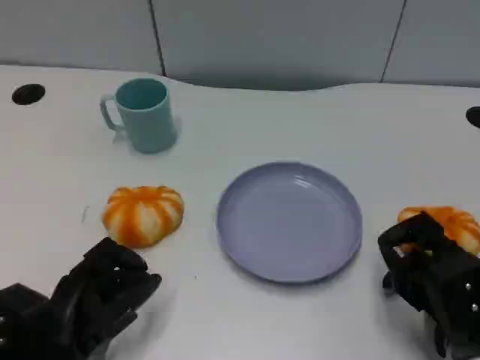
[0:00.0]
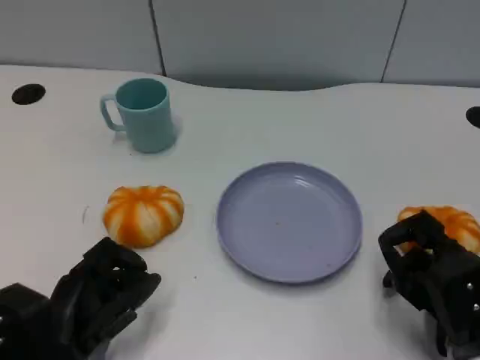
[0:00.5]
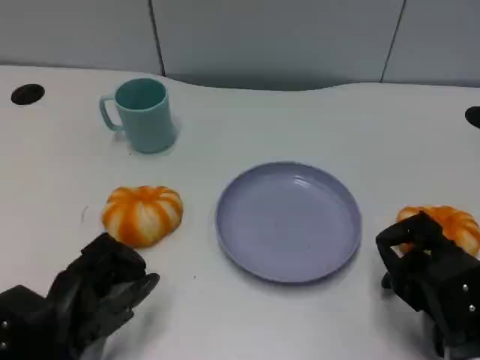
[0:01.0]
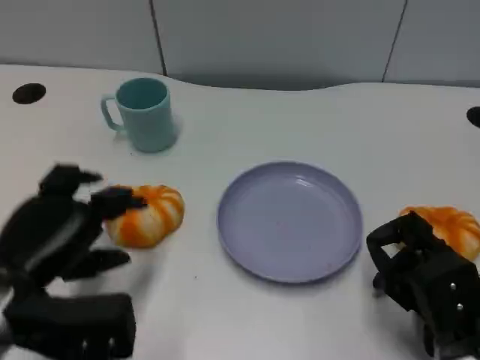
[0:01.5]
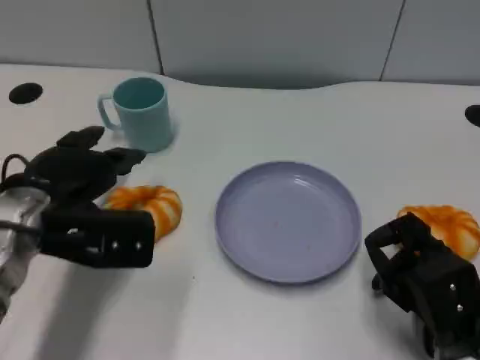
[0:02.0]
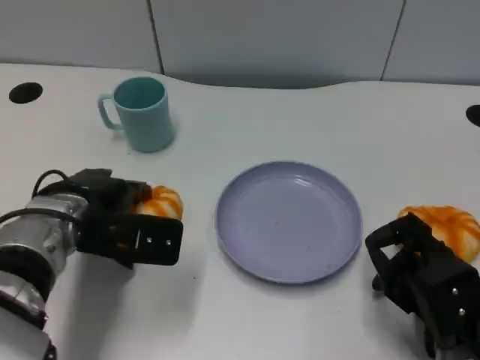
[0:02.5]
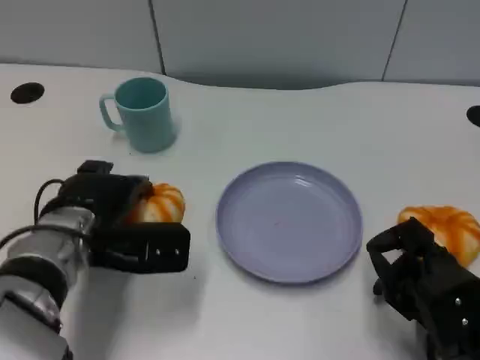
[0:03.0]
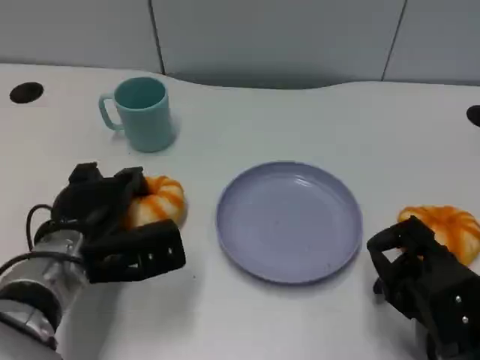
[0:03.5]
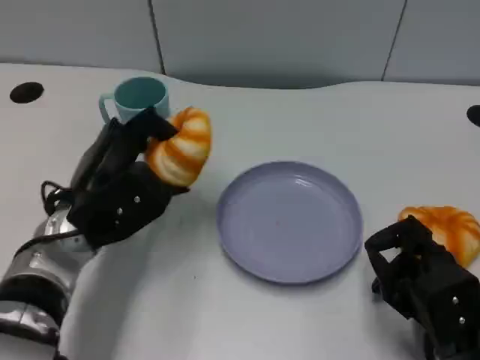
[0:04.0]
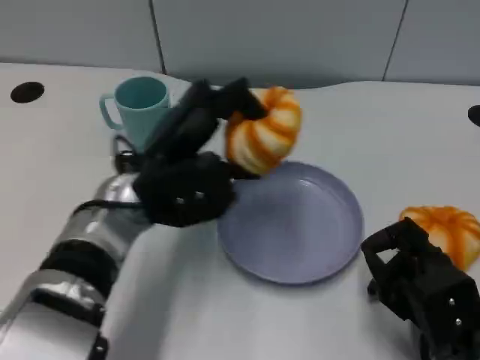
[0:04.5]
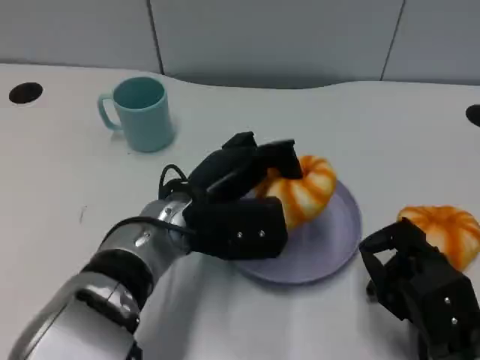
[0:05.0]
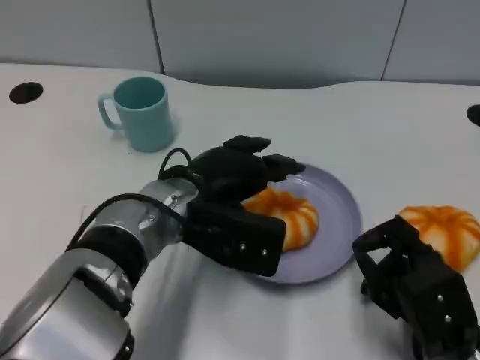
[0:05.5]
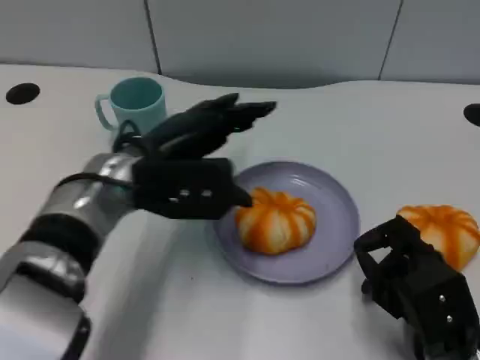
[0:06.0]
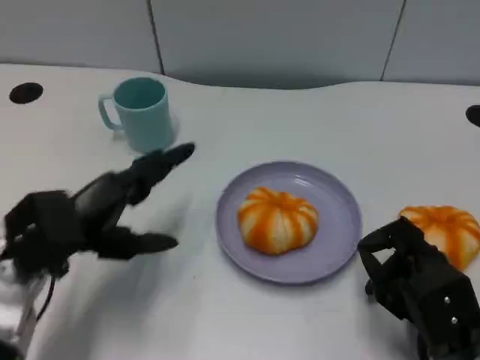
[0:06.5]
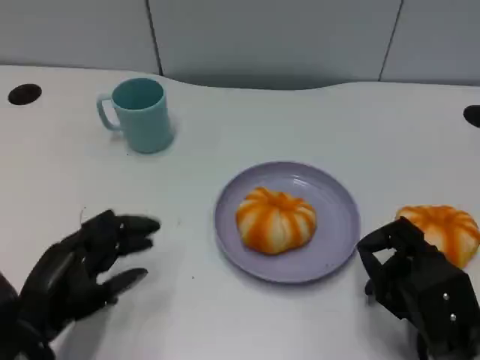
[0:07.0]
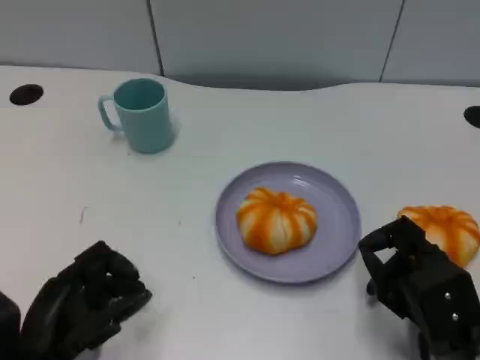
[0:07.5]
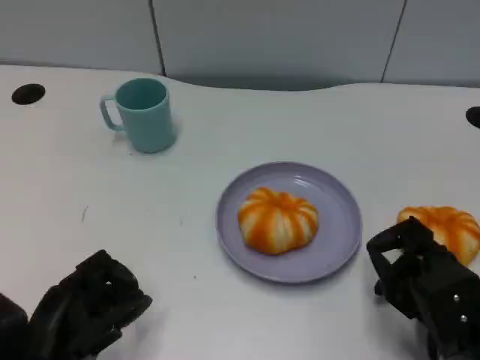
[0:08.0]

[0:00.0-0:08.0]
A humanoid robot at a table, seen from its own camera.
Task of the whole recording: Grasp the bread from the table and place it into the plate.
0:00.0 to 0:02.0: The left hand goes some 15 cm forward and upward.
0:06.0 to 0:08.0: The left hand goes roughly 20 cm backward, downward and to the left.

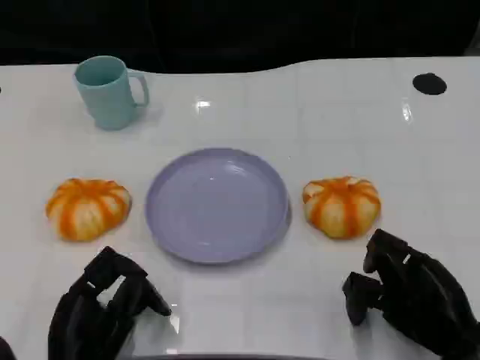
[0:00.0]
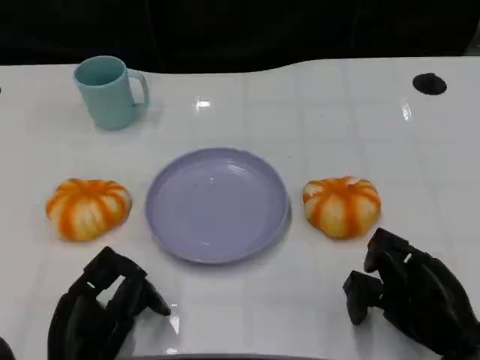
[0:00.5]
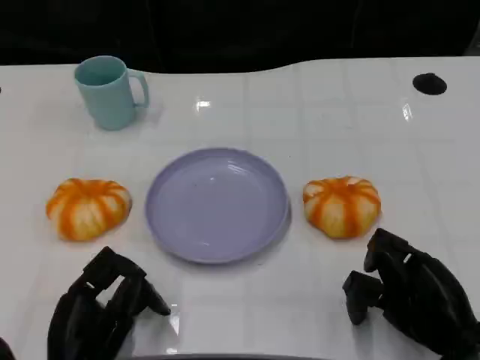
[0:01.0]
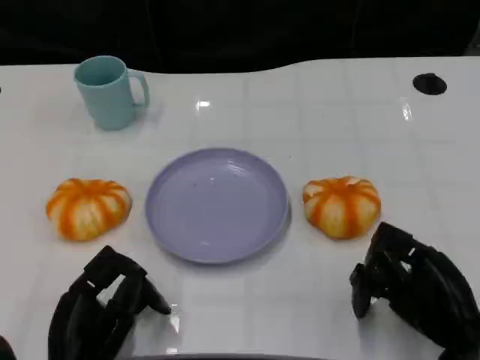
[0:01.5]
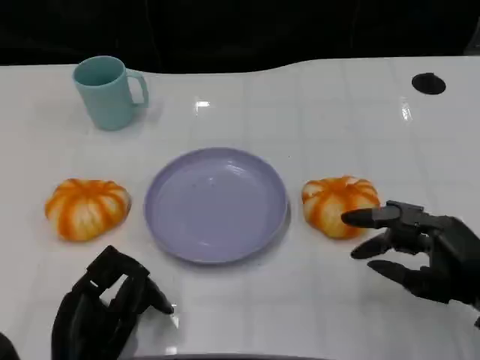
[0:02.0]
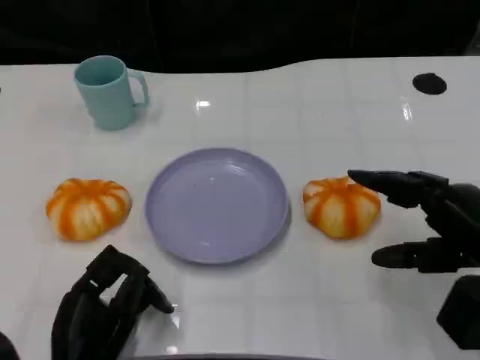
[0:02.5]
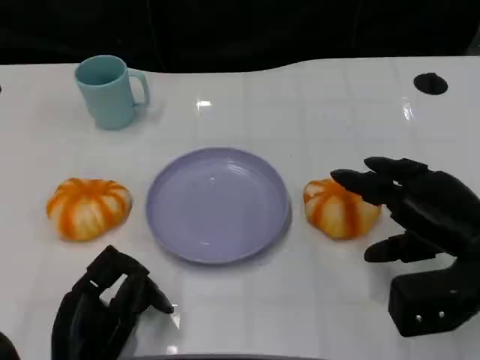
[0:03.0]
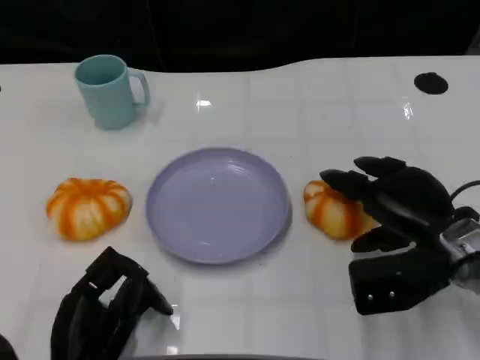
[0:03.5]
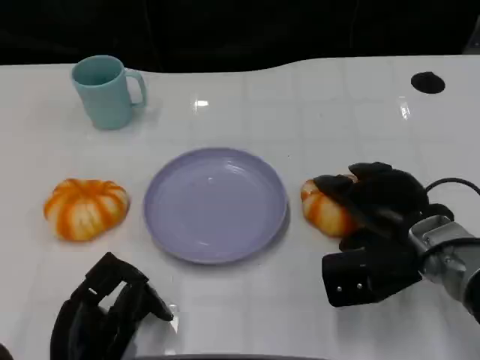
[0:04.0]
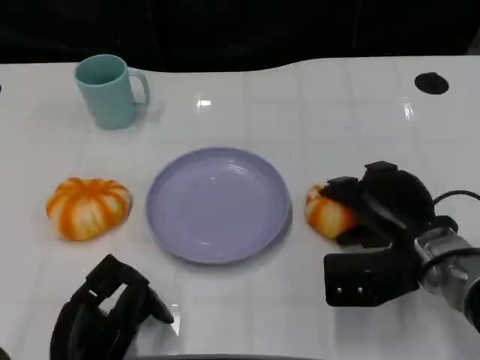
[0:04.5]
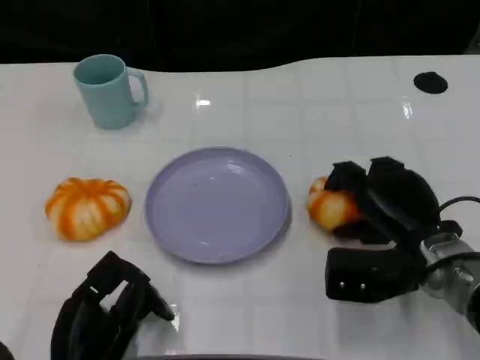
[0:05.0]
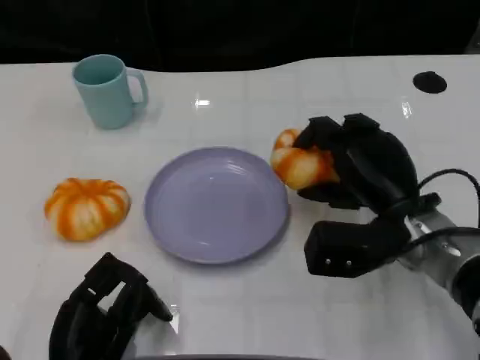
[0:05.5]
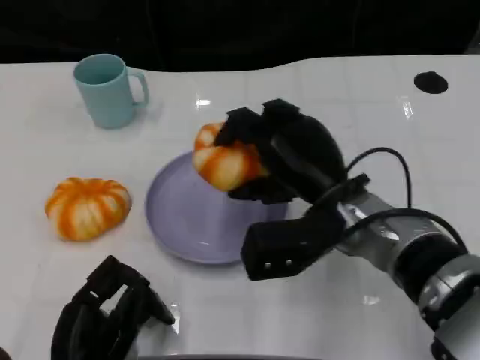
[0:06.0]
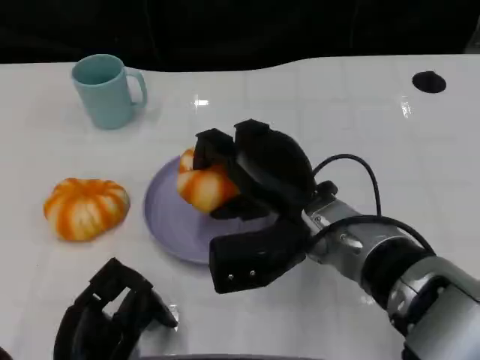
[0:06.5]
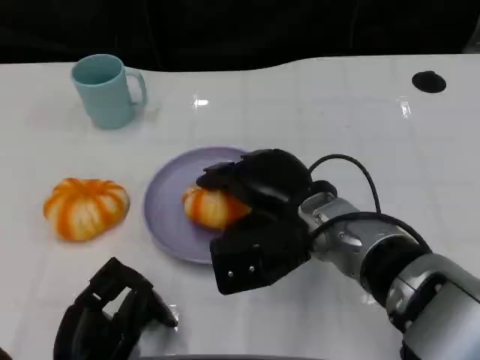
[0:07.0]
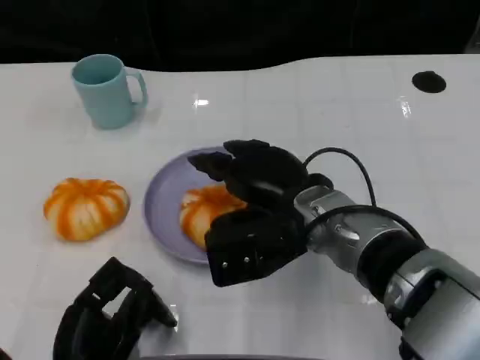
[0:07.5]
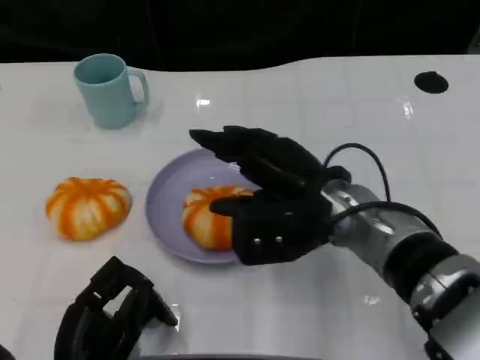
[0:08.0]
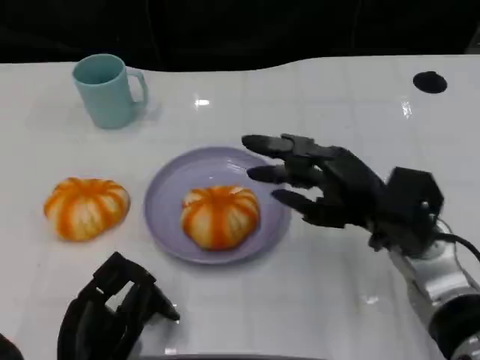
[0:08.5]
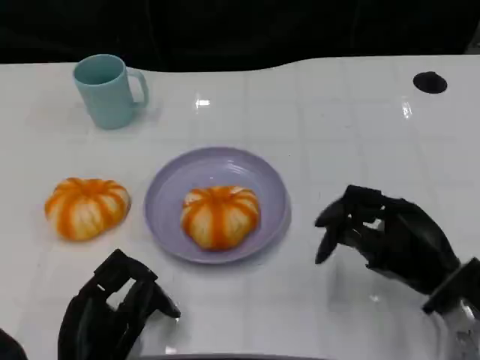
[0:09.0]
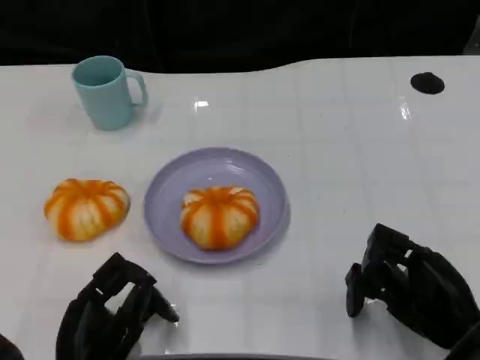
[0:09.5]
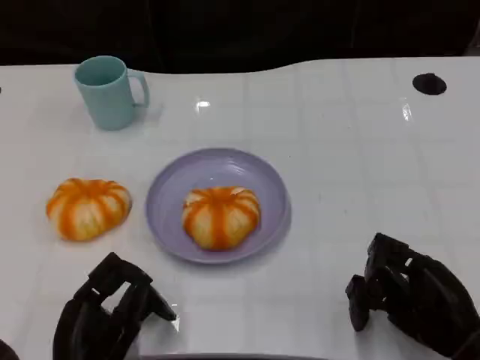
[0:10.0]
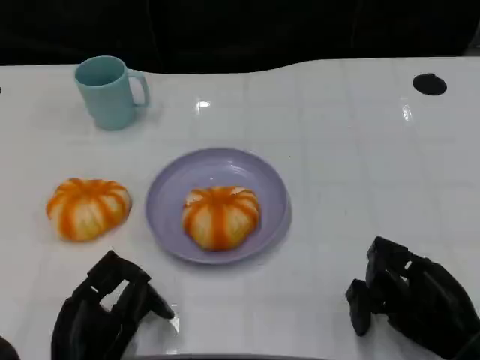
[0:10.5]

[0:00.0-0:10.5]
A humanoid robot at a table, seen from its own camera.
Task of the whole recording: Grasp the bread from the table and place it into the plate.
0:00.0 to 0:02.0: The right hand is displaced upward by roughly 5 cm.
0:02.0 to 0:04.0: The right hand heads forward and to the left, covering roughly 10 cm.
0:04.0 to 0:06.5: The right hand shifts some 10 cm to the left.
0:06.5 to 0:08.5: The right hand moves to the right, approximately 10 cm.
0:08.5 to 0:10.5: The right hand travels backward, to the right and downward by about 15 cm.

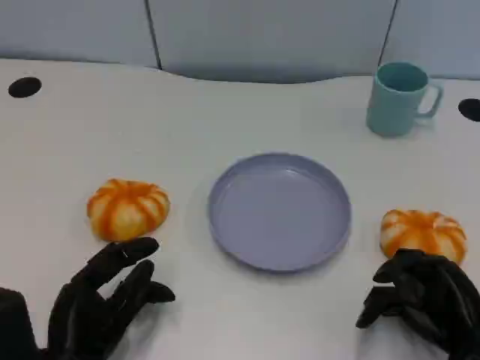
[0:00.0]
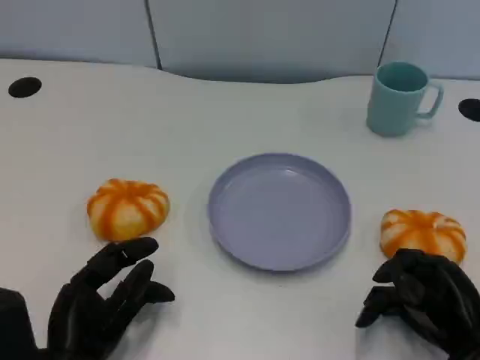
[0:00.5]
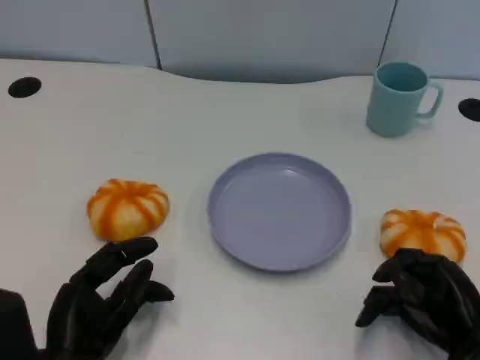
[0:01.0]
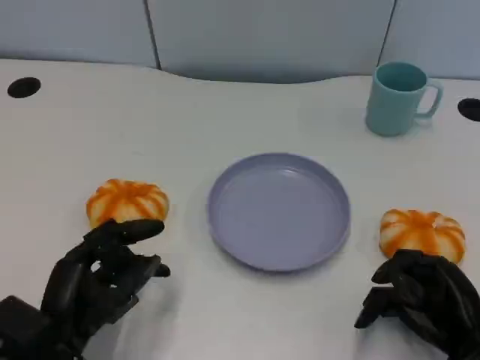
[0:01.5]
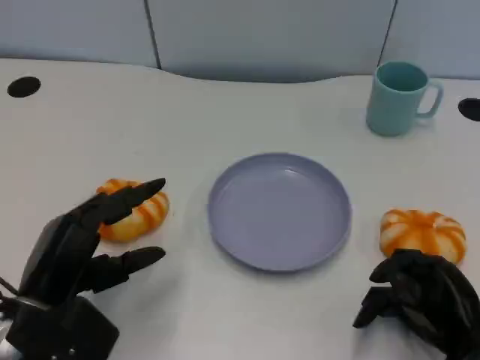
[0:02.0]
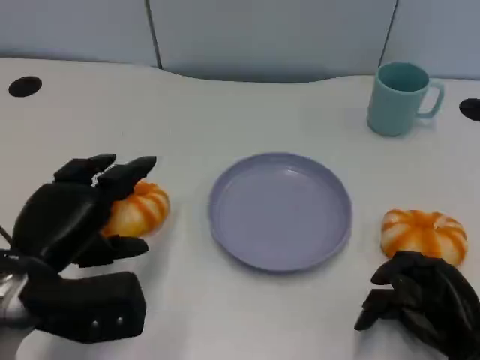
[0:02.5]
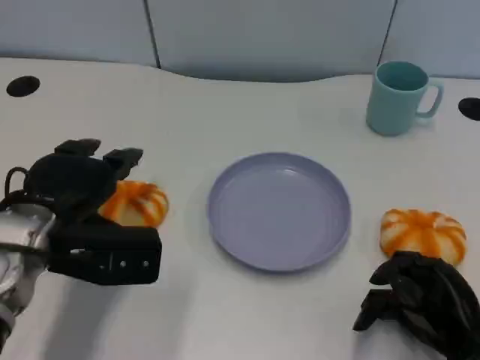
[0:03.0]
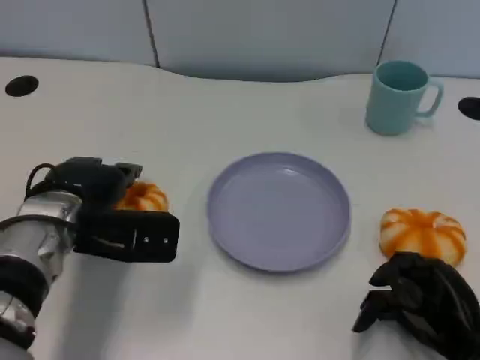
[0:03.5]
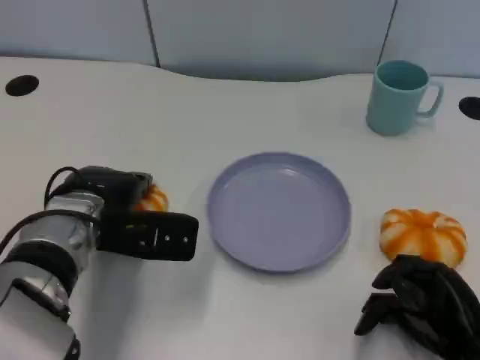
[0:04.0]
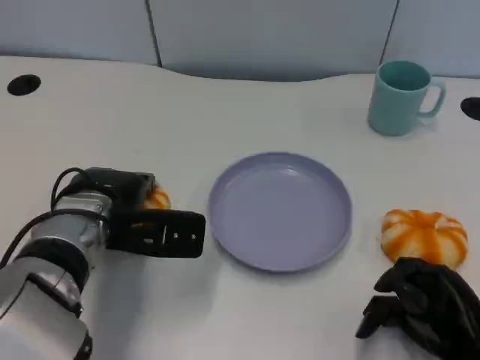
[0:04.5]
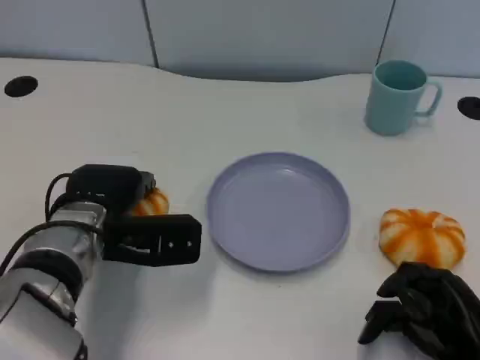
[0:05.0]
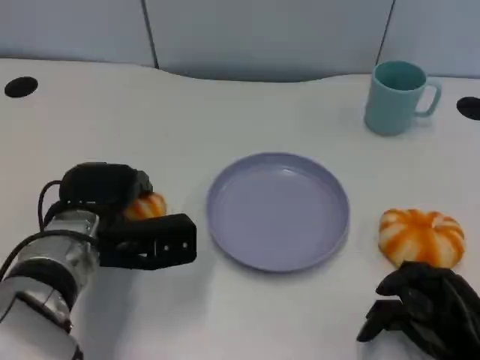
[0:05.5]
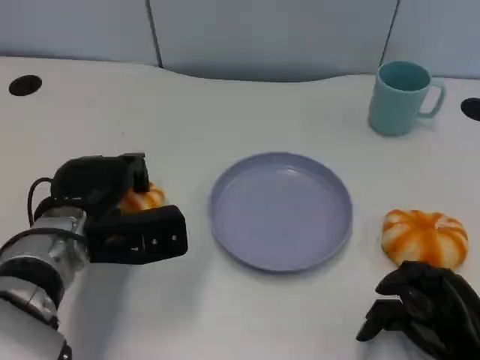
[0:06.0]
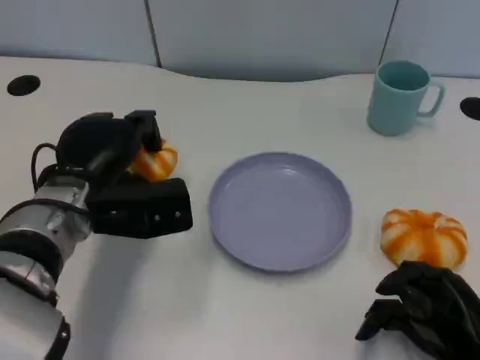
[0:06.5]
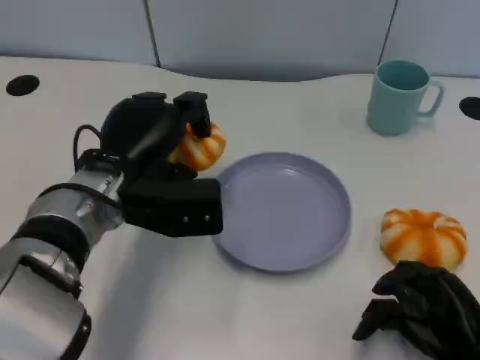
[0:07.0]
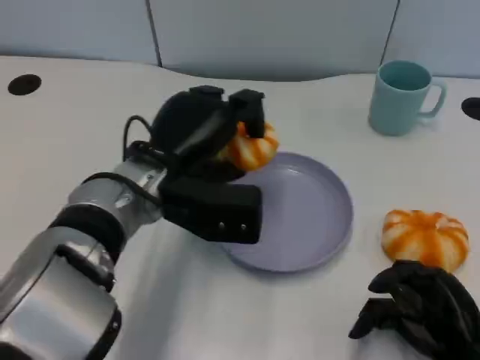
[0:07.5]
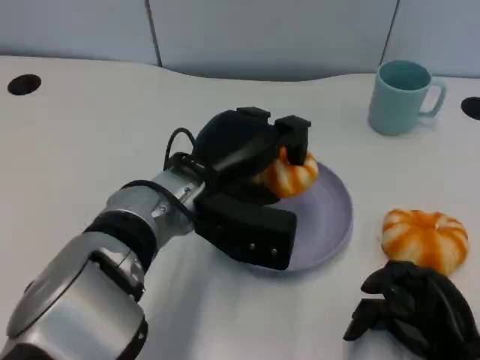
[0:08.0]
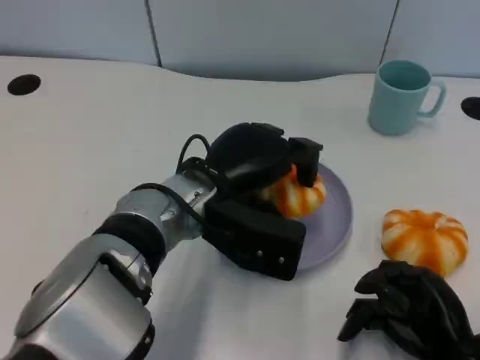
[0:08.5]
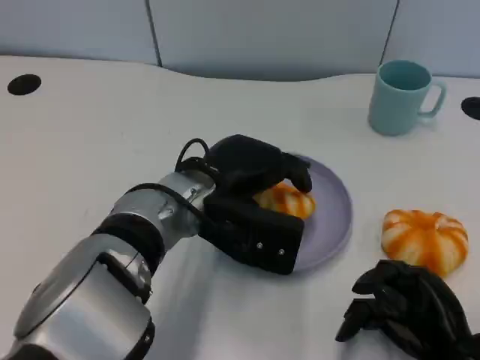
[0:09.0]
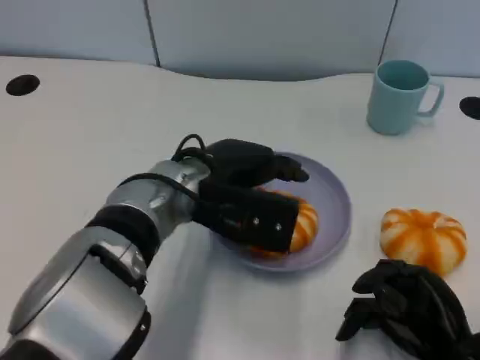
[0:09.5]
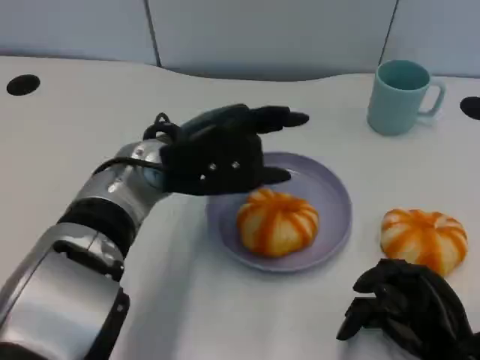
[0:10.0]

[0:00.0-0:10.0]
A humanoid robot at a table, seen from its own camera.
Task of the whole recording: Grasp the bread from the table and place it into the plate.
0:00.0 to 0:02.0: The left hand travels upward by approximately 5 cm.
0:02.0 to 0:04.0: The left hand heads forward and to the right, covering some 10 cm.
0:06.0 to 0:08.0: The left hand heads to the right, covering some 10 cm.
0:08.0 to 0:10.0: The left hand moves approximately 5 cm.
